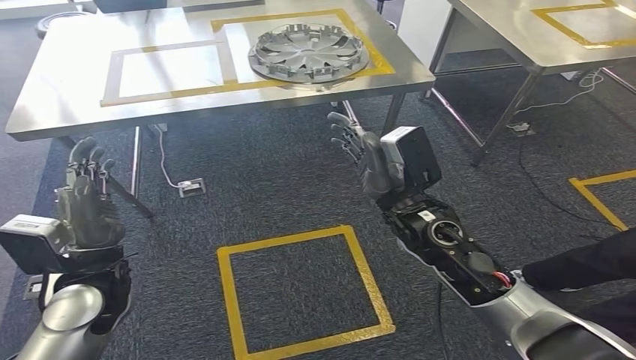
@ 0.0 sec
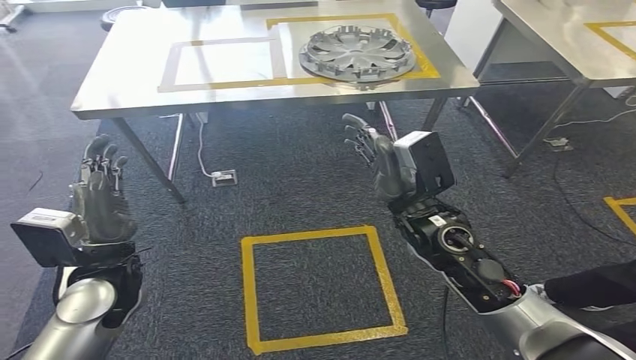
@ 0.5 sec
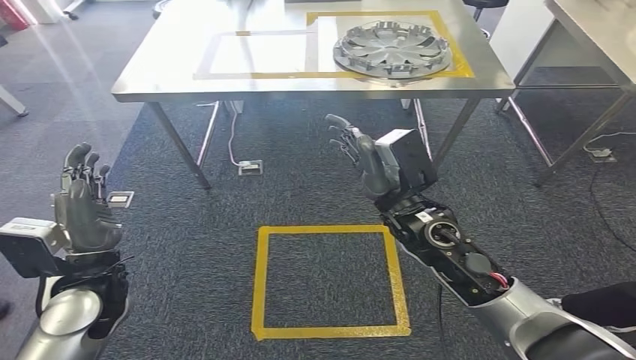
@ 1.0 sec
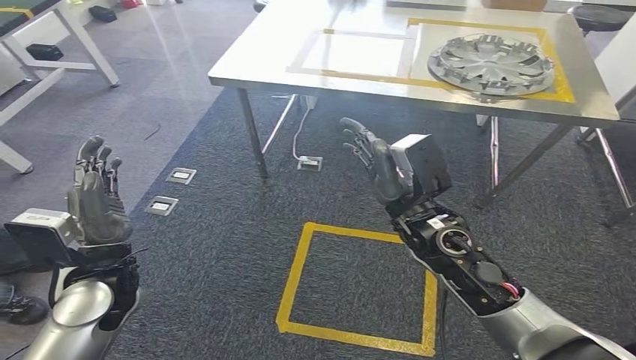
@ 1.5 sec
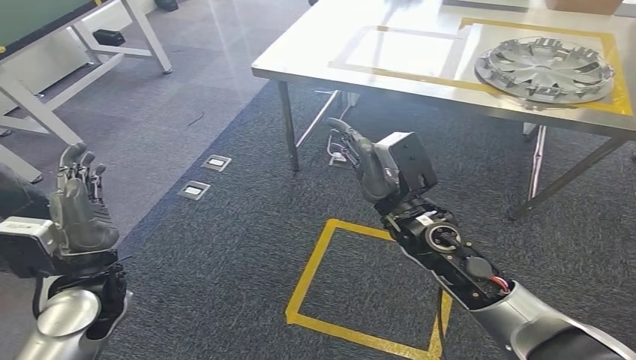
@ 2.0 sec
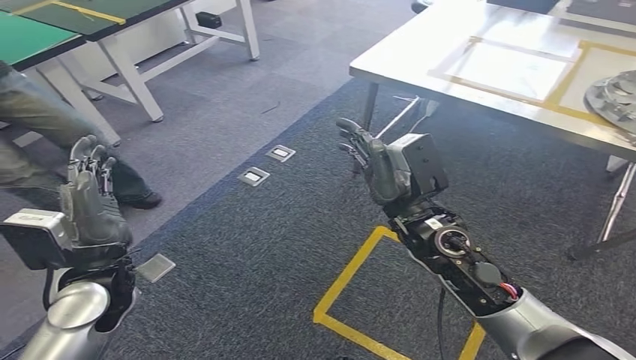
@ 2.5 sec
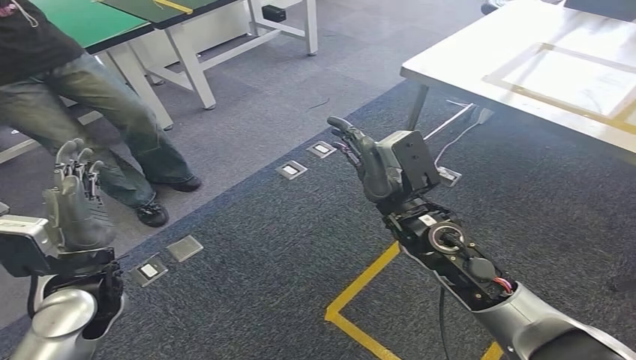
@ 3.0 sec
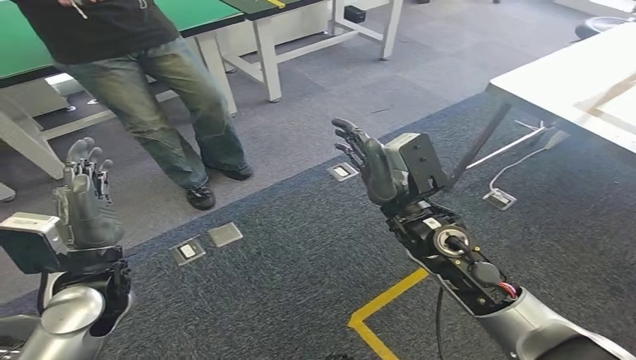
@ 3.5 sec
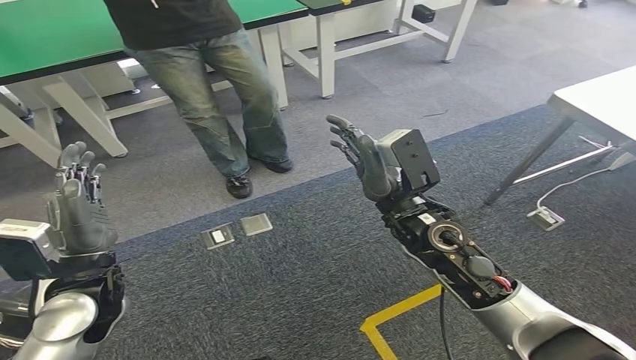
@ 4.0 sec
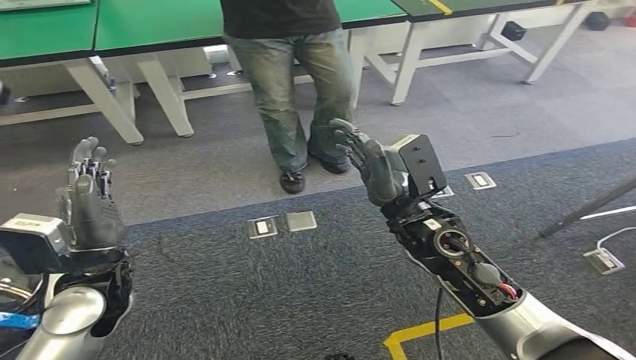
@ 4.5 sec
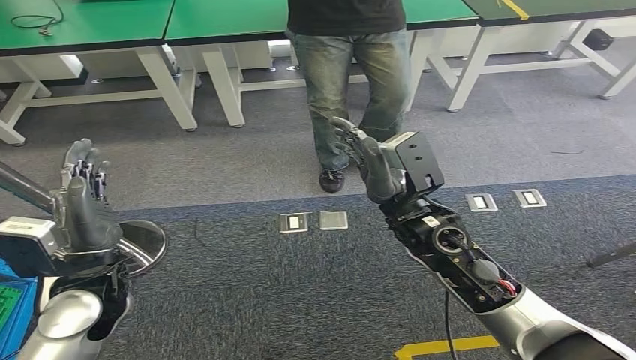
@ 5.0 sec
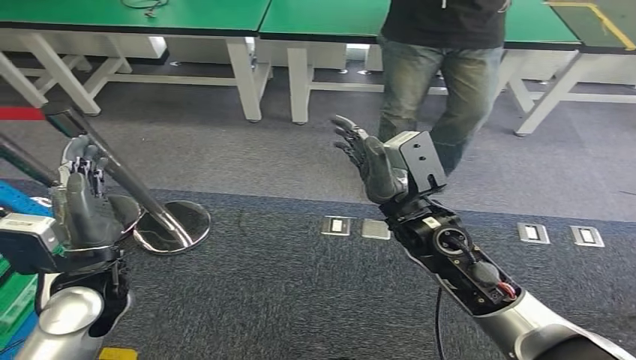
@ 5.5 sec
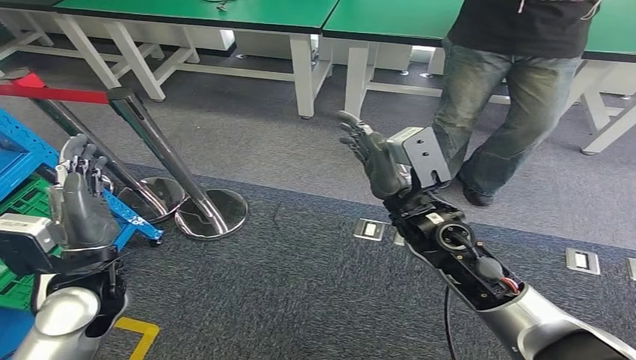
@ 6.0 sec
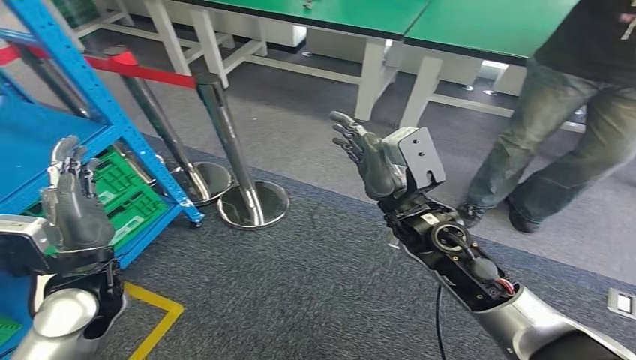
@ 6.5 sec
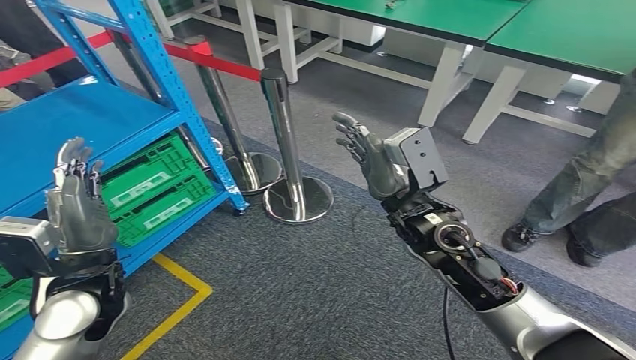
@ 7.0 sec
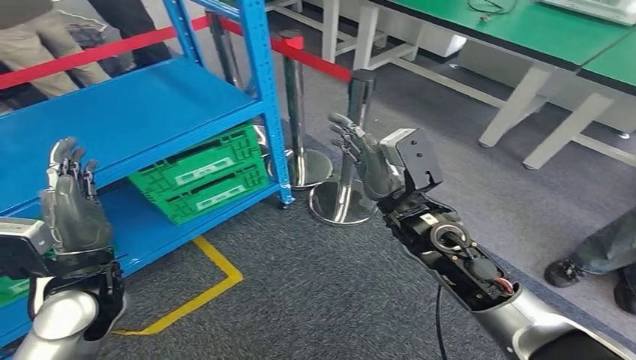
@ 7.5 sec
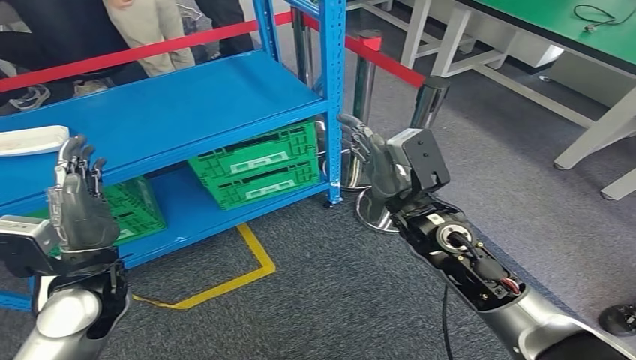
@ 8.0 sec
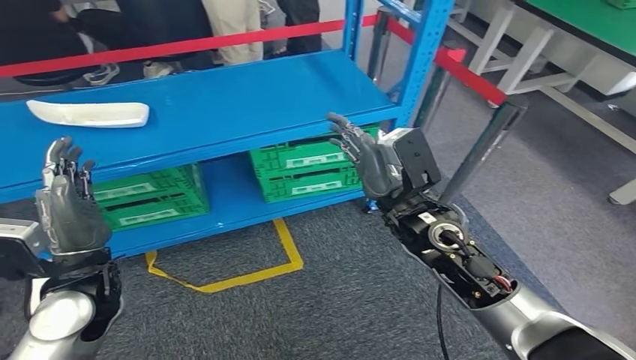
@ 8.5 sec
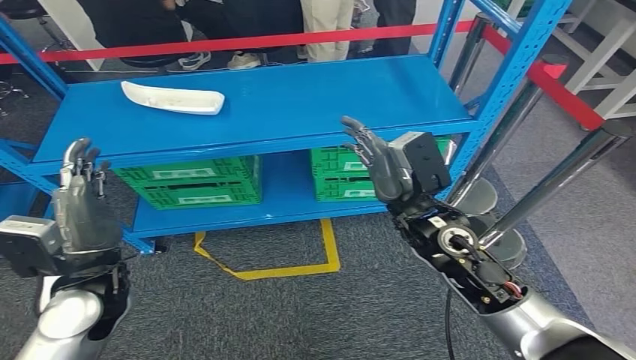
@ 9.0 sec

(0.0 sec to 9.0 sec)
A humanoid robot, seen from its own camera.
Step, 0.0 sec - 9.0 sec: Return to the initial position at the workbench.
